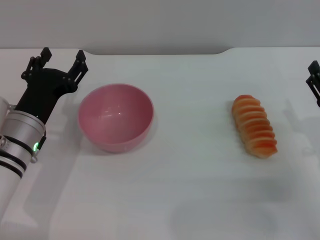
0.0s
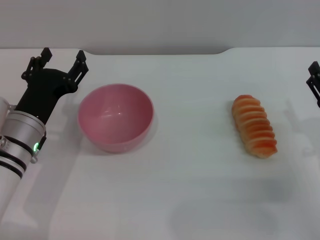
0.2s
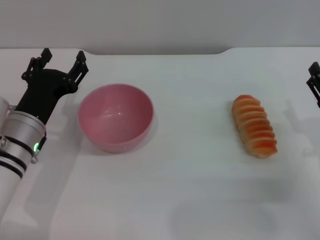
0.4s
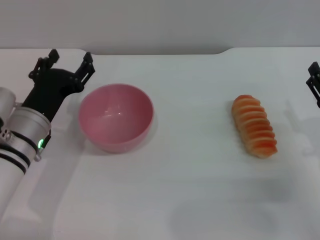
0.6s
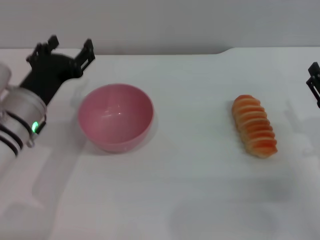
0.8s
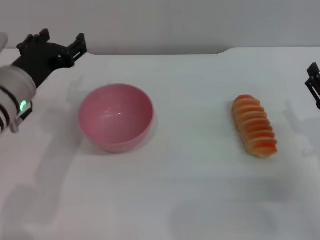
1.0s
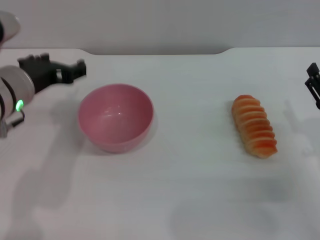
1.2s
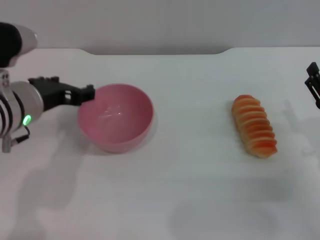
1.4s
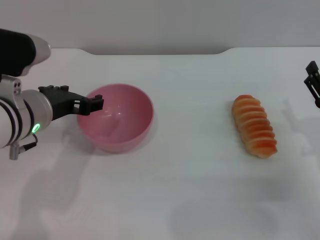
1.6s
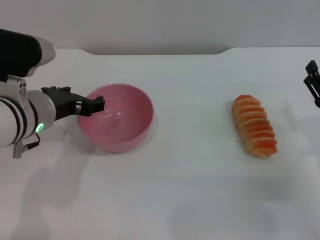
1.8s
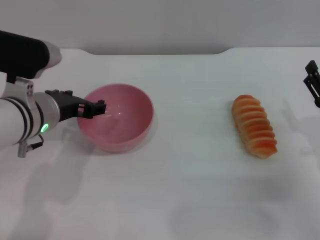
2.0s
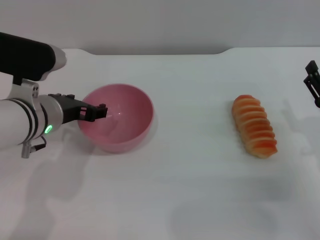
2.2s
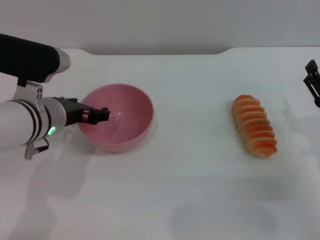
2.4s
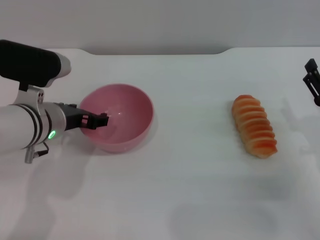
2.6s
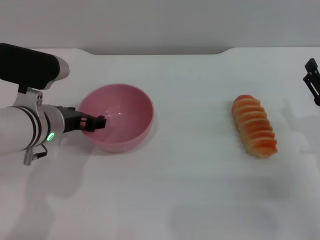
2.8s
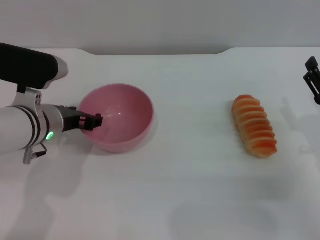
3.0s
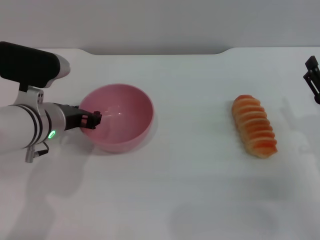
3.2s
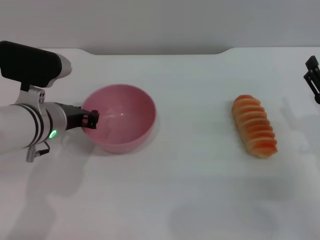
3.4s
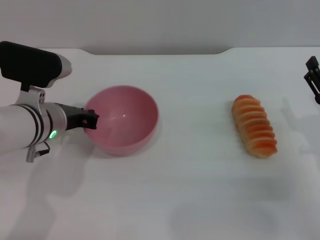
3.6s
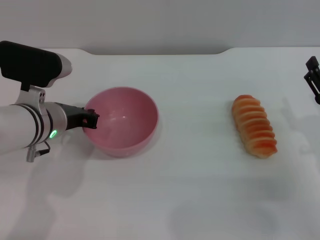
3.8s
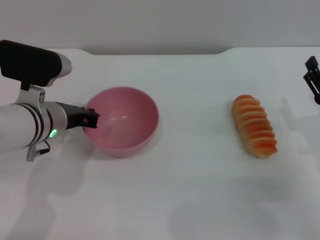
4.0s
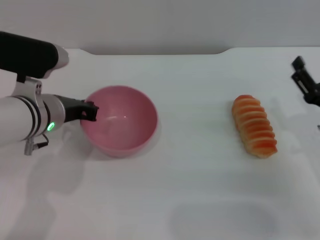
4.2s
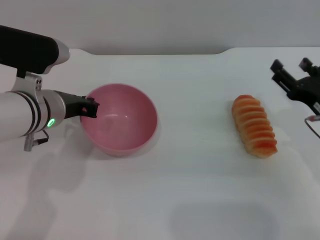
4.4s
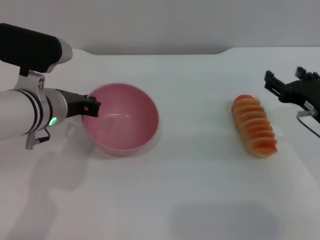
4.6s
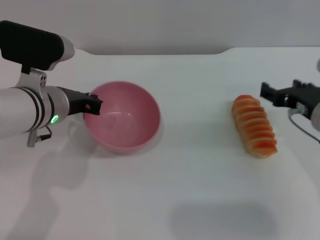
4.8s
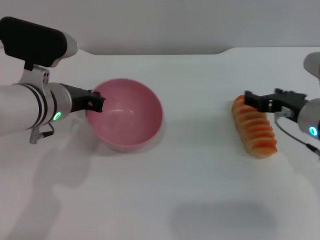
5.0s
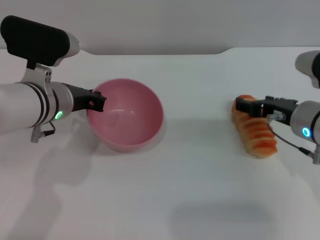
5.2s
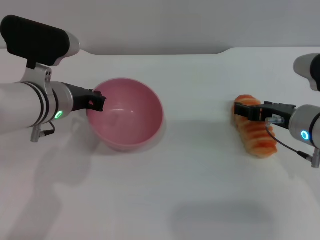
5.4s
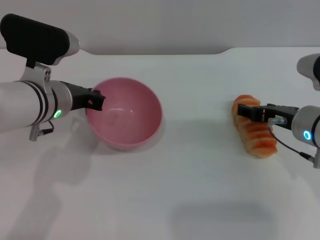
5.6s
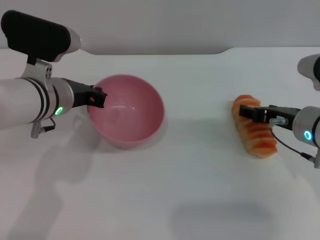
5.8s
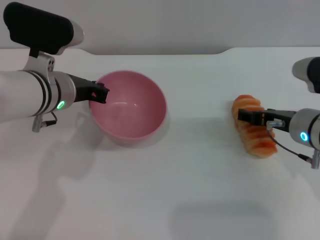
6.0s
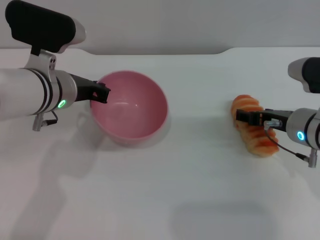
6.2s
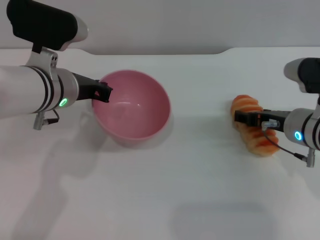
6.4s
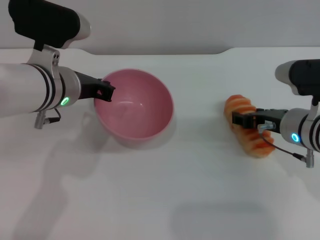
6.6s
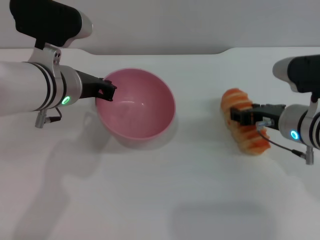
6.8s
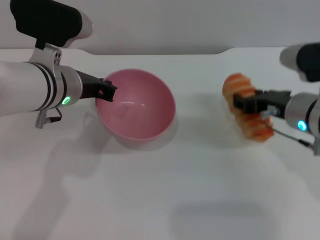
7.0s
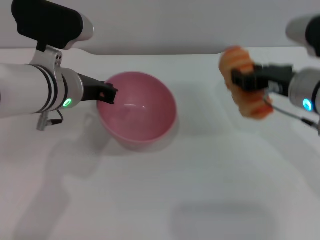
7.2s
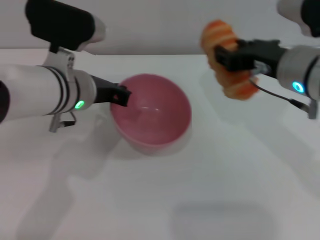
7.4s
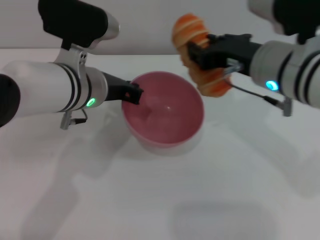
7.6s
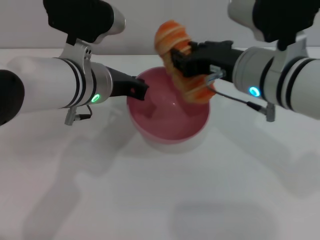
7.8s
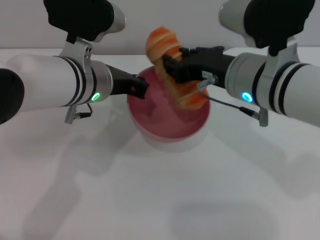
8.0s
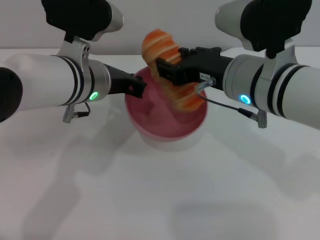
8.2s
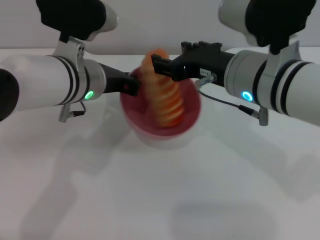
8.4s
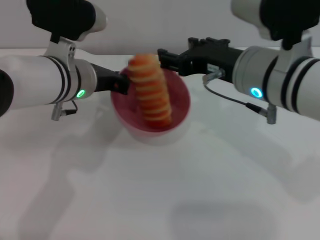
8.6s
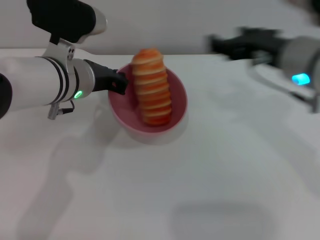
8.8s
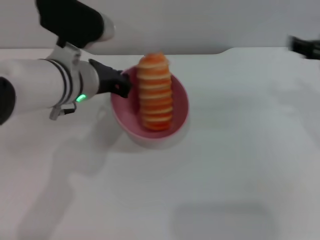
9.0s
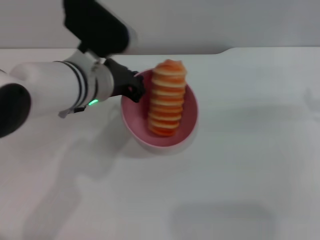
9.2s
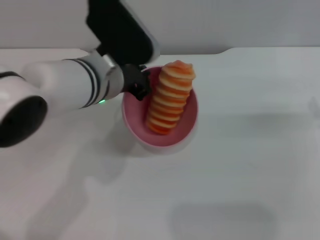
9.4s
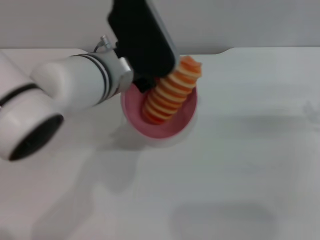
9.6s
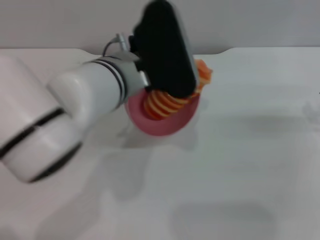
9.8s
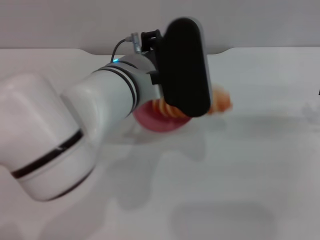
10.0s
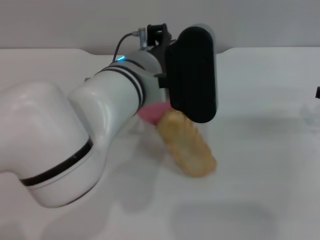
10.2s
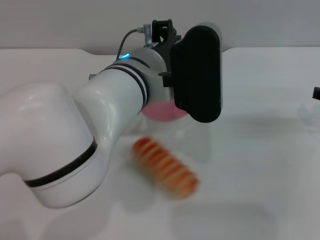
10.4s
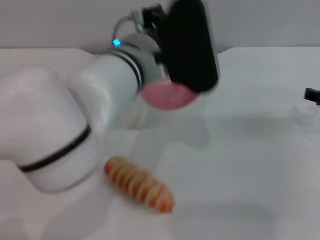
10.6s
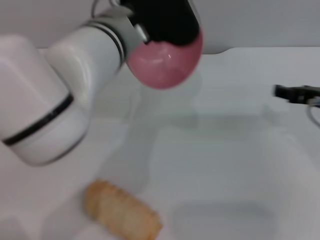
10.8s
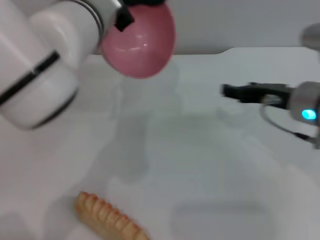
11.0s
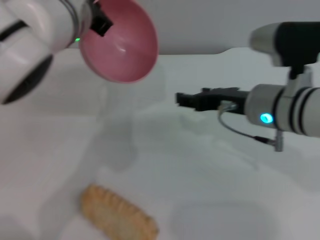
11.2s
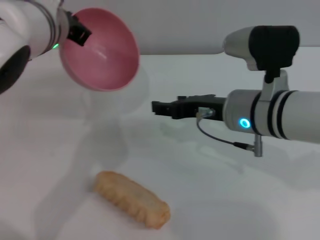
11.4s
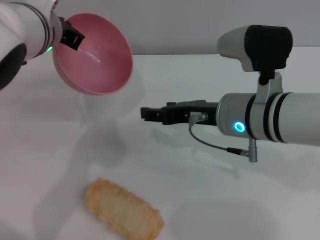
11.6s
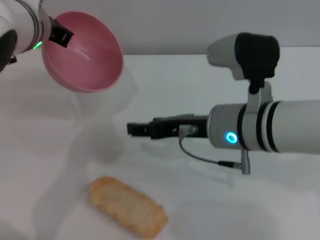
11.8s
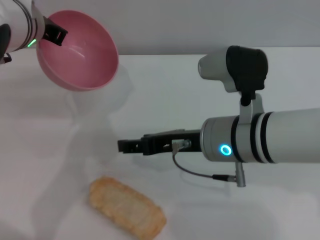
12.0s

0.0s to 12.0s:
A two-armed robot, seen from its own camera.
Task of the whole recording: put the bread into the pink bowl and pour it out repeatedly.
Step, 0.0s to 5.6s: Pick up the bowl with the left gripper.
Step, 5.8s to 7.0s: Pick up the bread with the right gripper.
Step, 7.2s to 8.6s: Place the bread into the bowl.
Step, 8.8s to 10.4s: Pour the bread out of the bowl.
0.0s to 1.6s: The left gripper moves upward, roughly 10 cm.
1.6s to 3.0s: The left gripper changes place by roughly 5 cm.
3.0s to 4.4s: The left gripper closes.
4.4s to 6.0s: The right gripper travels to the left by roughly 5 cm.
6.0s to 7.6s: The right gripper goes some 15 cm upward and to the left, and closes.
7.6s to 9.0s: The right gripper is displaced to the right by approximately 10 cm, and opens its fingers.
9.0s to 10.4s: The left gripper travels to the right by roughly 10 cm, while the right gripper is displaced downward by approximately 5 cm.
10.4s to 12.0s: The left gripper travels to the left and forward by approximately 15 cm. Meanwhile the right gripper is displaced to the left by roughly 20 cm.

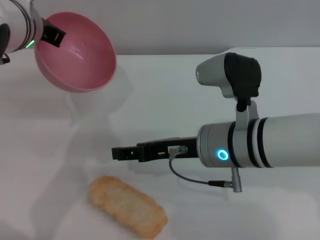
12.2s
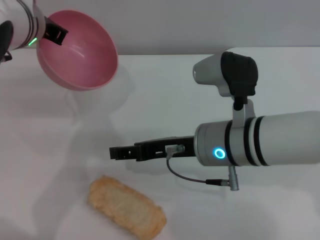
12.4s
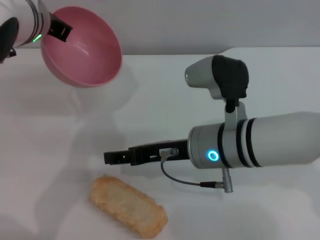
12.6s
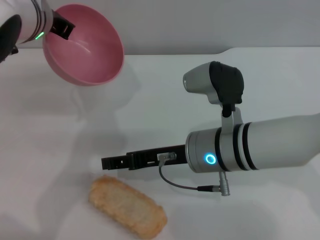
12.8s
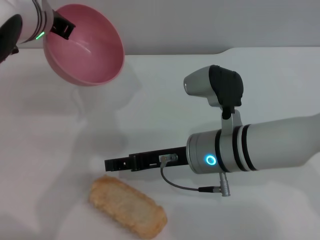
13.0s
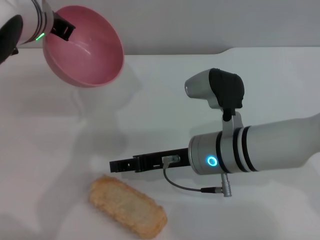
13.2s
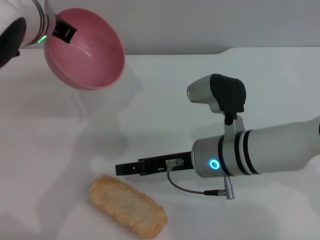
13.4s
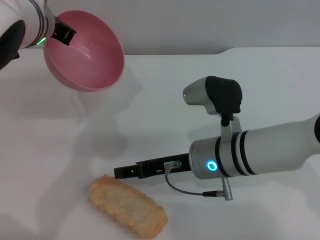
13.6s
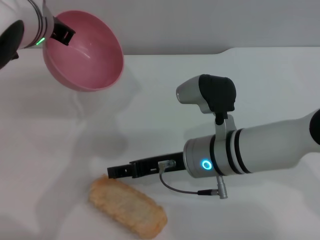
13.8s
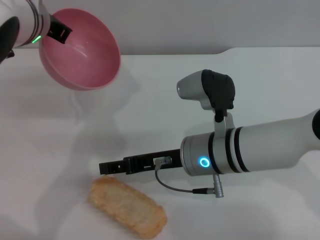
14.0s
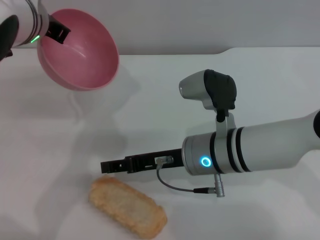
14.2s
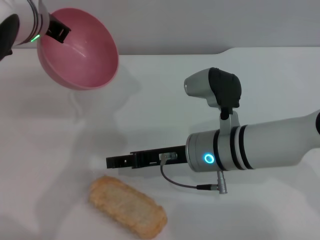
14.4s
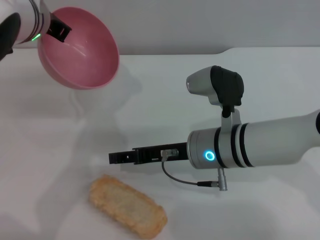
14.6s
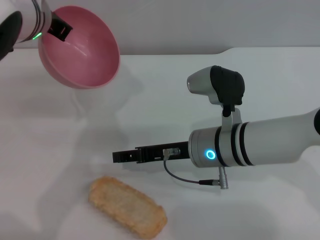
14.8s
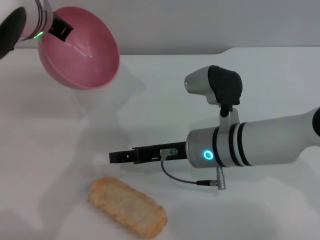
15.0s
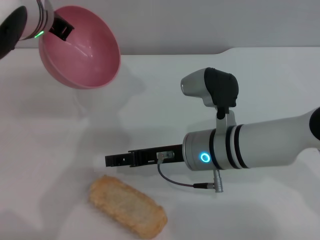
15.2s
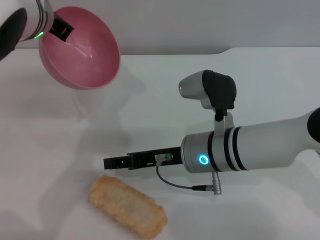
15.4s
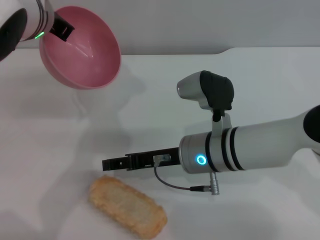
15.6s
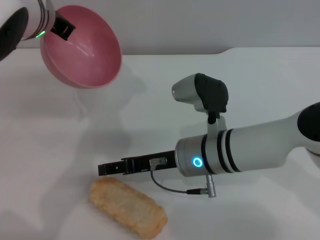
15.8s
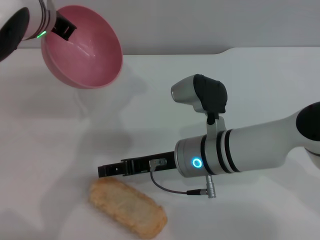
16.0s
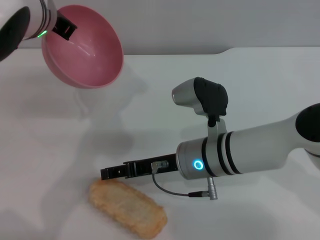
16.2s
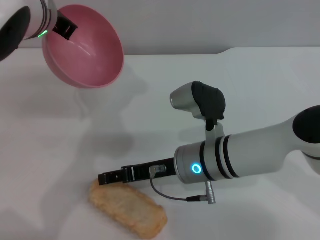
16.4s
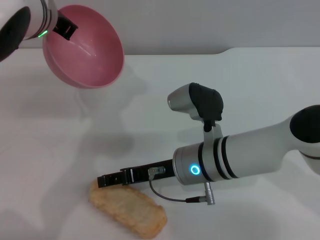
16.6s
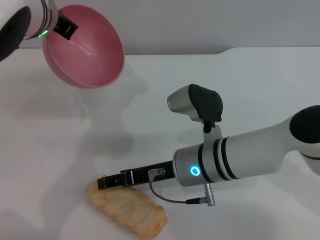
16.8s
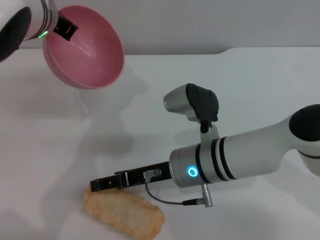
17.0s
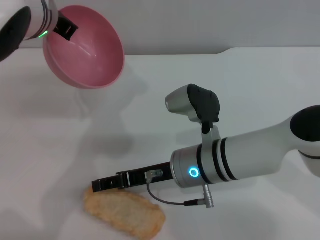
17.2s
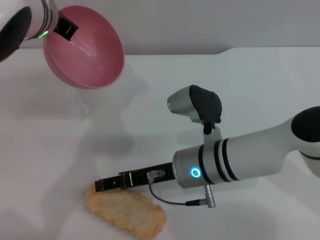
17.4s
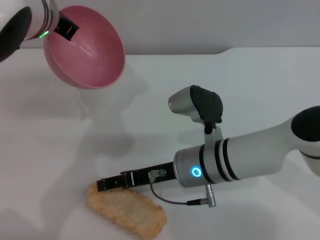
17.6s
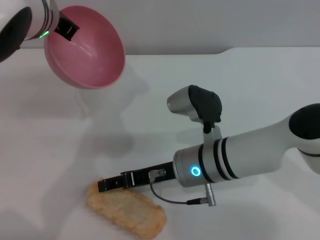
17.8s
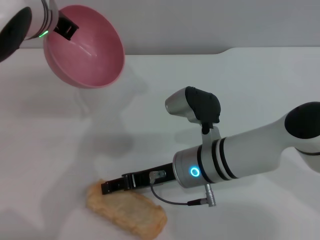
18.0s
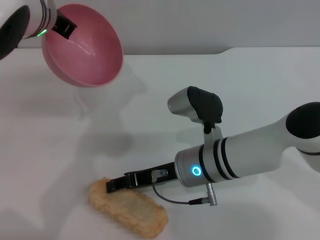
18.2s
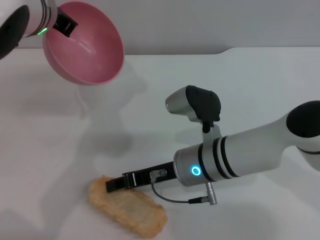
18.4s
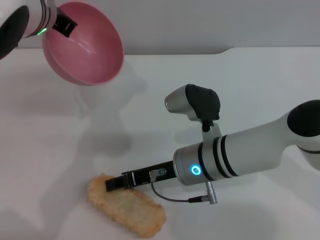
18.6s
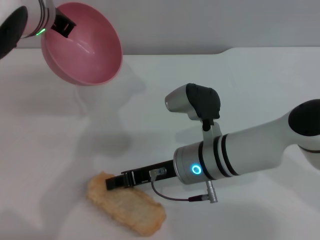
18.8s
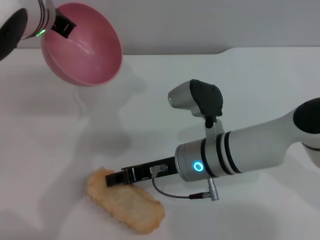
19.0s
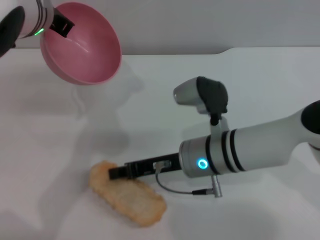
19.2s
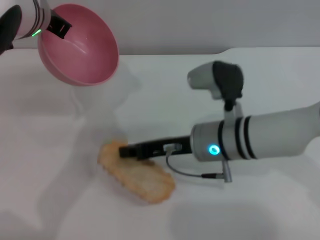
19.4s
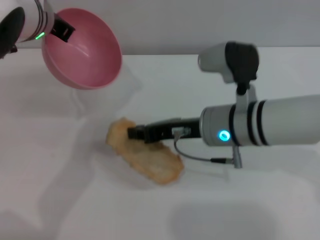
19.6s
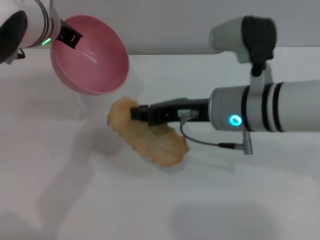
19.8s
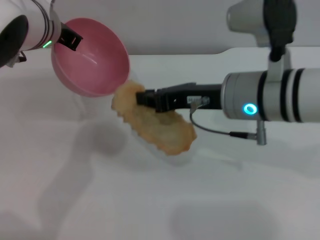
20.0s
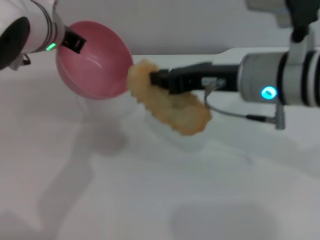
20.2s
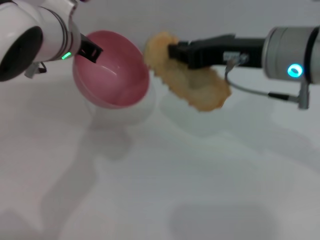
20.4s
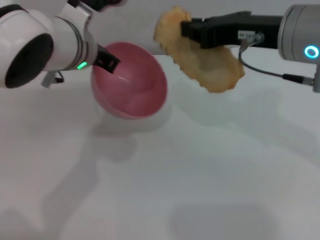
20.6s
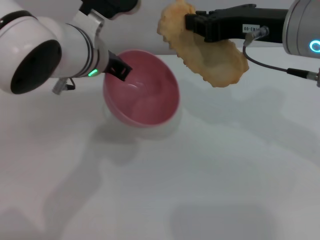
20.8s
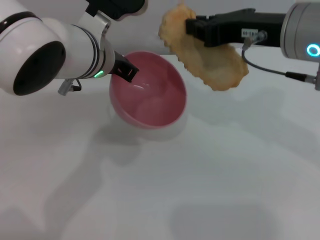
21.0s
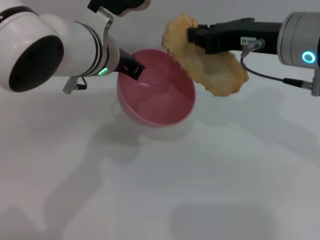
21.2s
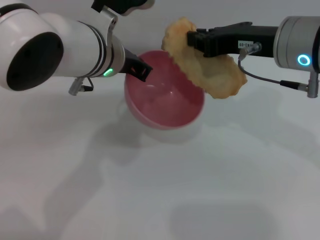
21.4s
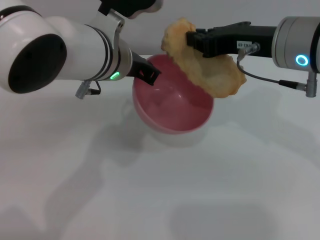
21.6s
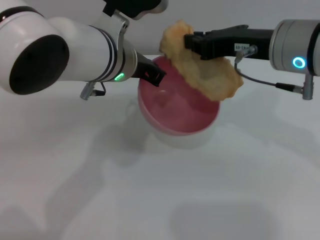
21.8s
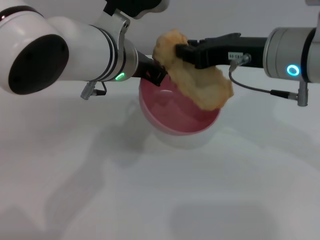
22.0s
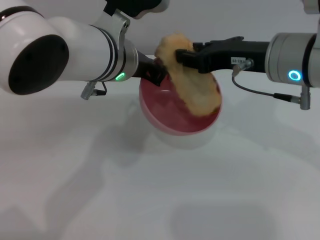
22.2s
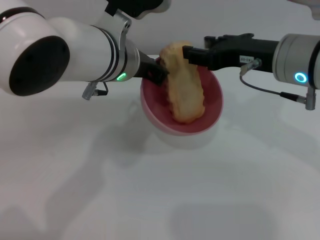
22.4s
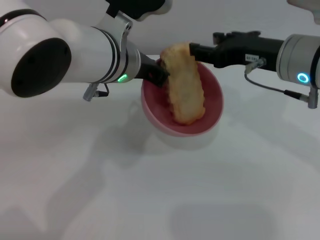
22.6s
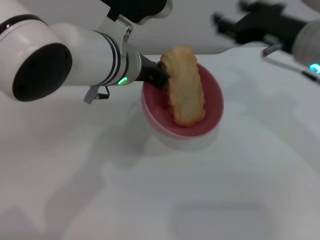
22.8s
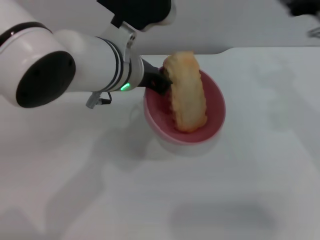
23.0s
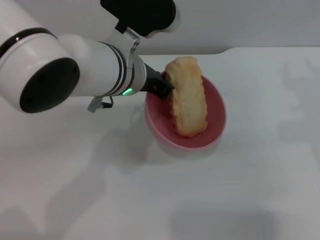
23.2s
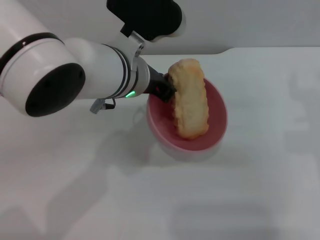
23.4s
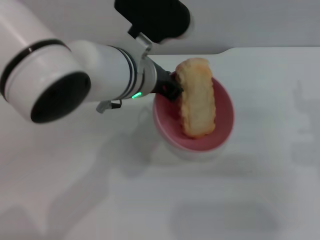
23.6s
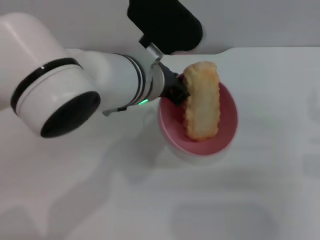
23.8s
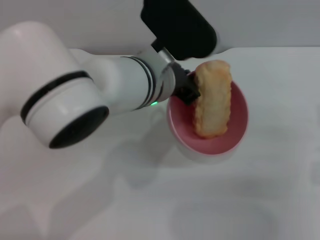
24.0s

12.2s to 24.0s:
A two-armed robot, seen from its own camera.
Task of the whole recording: put the bread into the pink bowl and pour it out repeatedly.
Step, 12.2s to 19.8s: Pick up the bread with the right gripper.
Step, 20.0s to 22.6s: Place the bread into the bowl.
12.2s to 15.2s: The grippers stay close to where they were, moving slightly.
15.2s to 16.6s: The grippers move only a little.
16.6s to 18.2s: The two grippers keep their place.
18.2s to 19.6s: The right gripper travels upward by approximately 5 cm, and closes up.
19.6s to 21.0s: The right gripper travels upward and to the right by some 15 cm. The left gripper travels to the right by approximately 5 cm.
21.0s to 22.6s: The right gripper heads downward, covering approximately 5 cm, and opens up.
22.6s to 24.0s: The right gripper shifts roughly 20 cm to the right, downward and backward.
